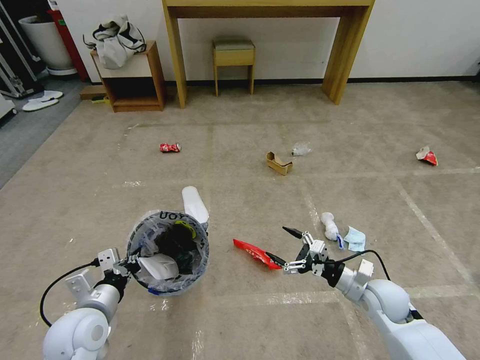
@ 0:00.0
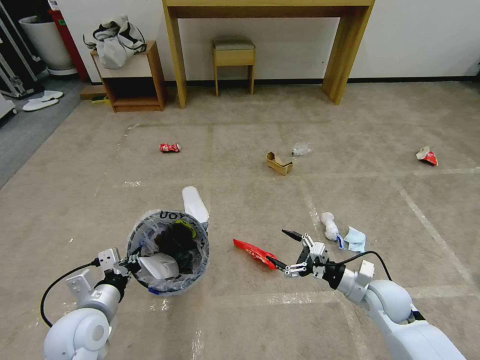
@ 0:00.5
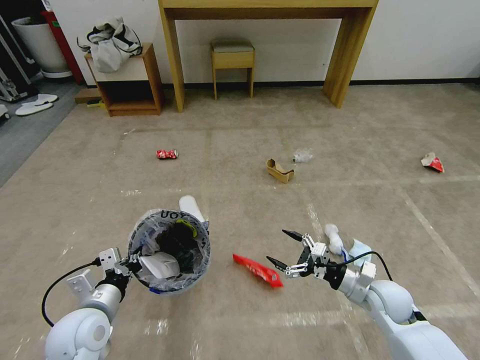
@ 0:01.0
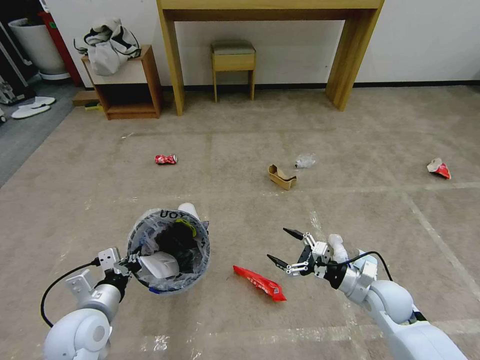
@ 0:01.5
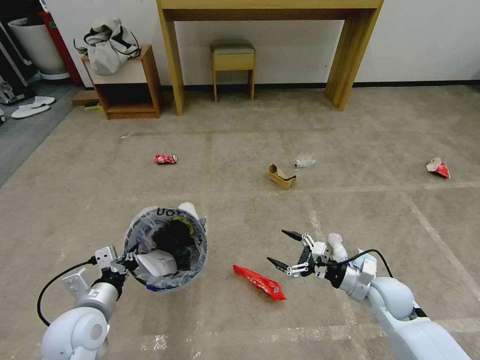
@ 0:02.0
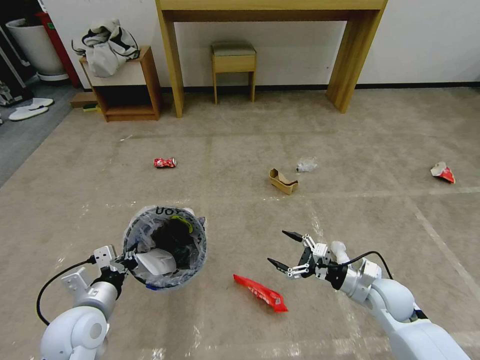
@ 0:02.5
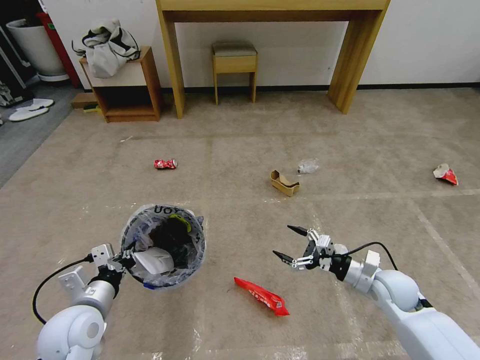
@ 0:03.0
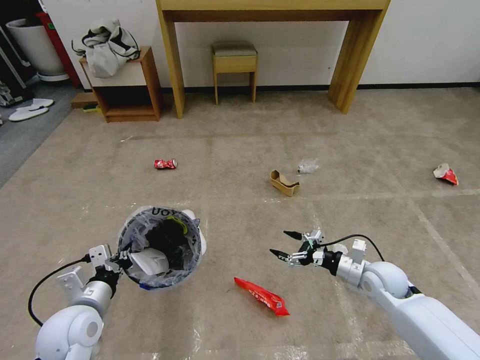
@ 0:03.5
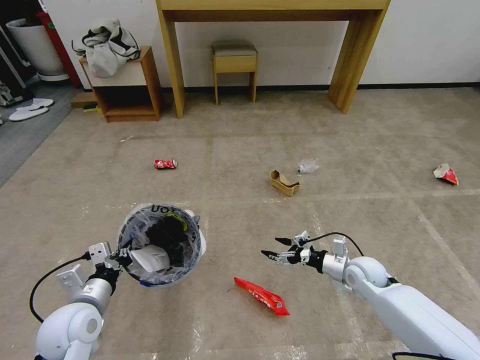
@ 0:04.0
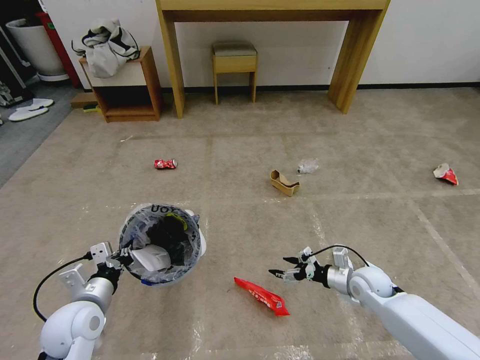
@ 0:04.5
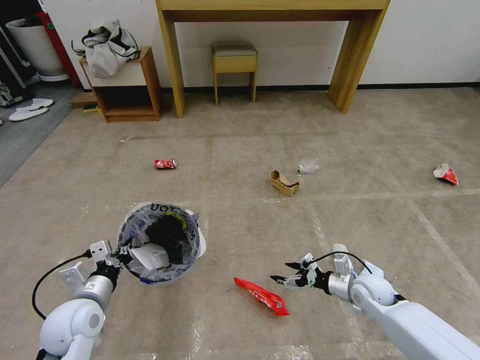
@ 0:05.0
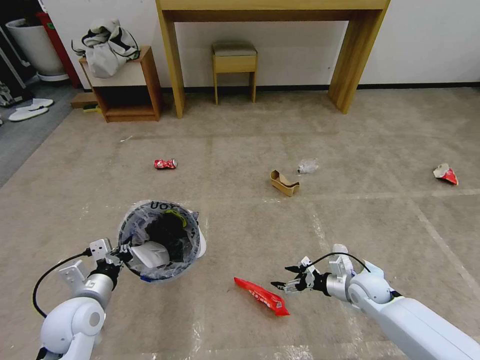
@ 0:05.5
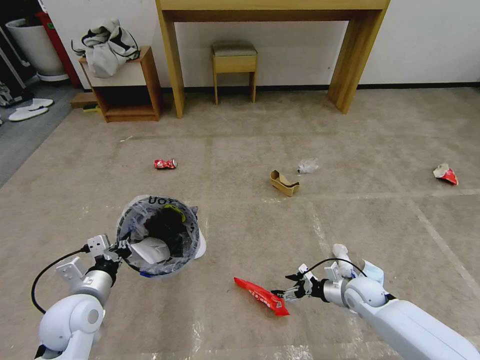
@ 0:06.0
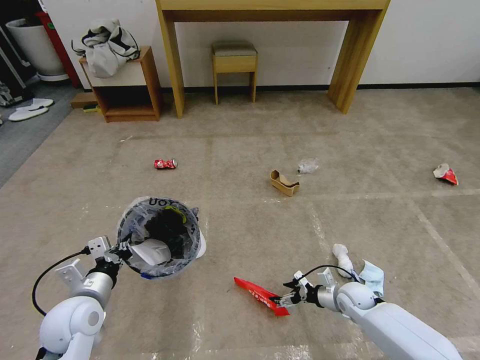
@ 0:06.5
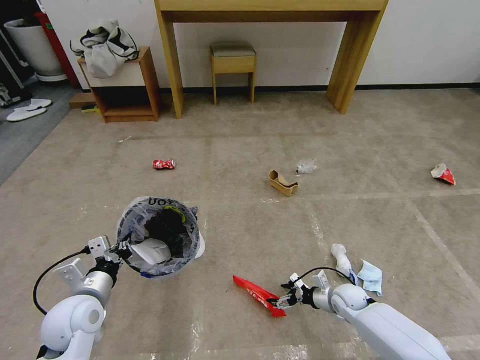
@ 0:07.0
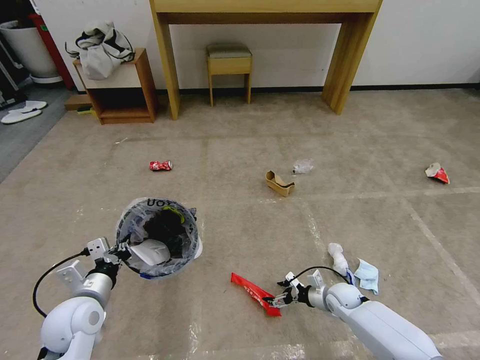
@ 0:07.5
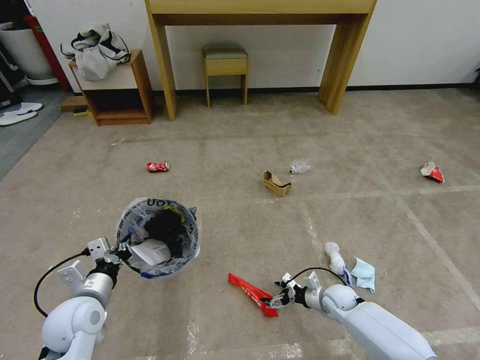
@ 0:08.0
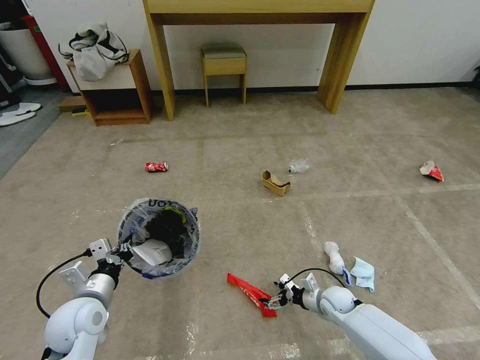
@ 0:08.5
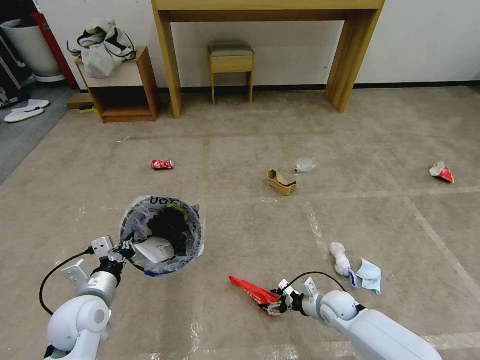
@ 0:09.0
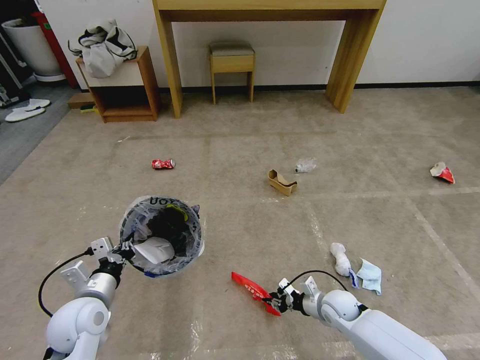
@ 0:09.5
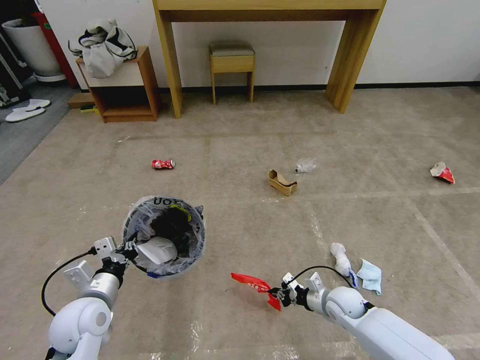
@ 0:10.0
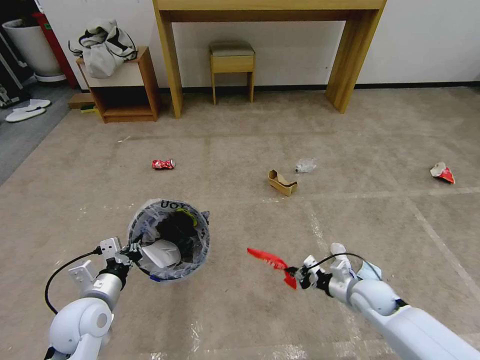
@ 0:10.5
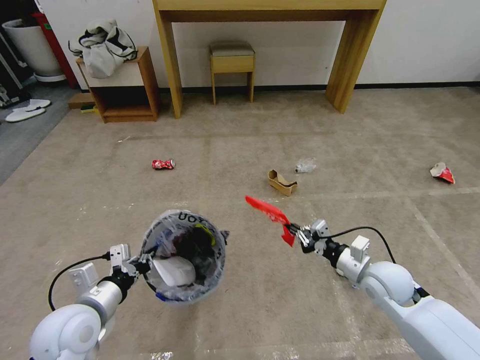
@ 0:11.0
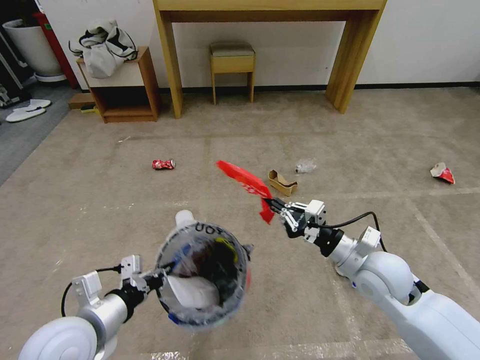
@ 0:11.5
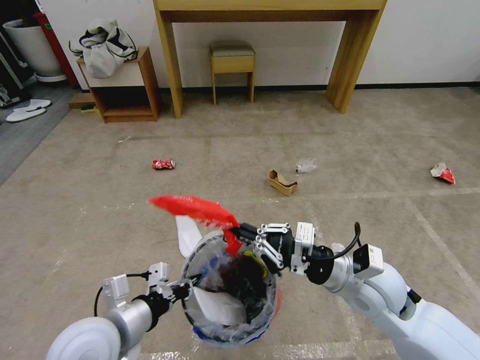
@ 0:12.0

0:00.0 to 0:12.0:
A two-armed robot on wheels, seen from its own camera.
Task of the whole recording: Pick up the trash bin and place the garbage on the floor into it.
0:00.0 to 0:02.0: Neither gripper changes place.
0:02.0 to 0:04.0: The right gripper heads forward, covering roughly 5 cm.
0:04.0 to 0:06.0: The right gripper moves downward, some 5 cm.
0:06.0 to 0:08.0: The right gripper moves downward, some 10 cm.
0:08.0 to 0:10.0: The right gripper is displaced upward by some 5 cm, and closes.
0:10.0 to 0:12.0: The left gripper heads upward, to the right and backward, covering approximately 15 cm, while the right gripper moves upward, some 25 cm.

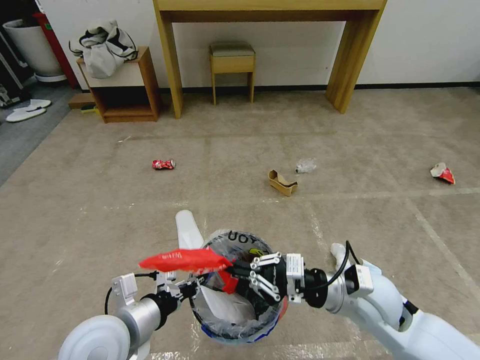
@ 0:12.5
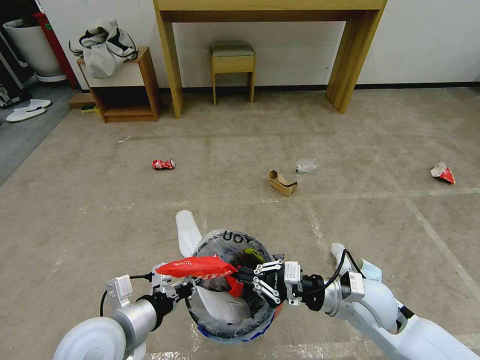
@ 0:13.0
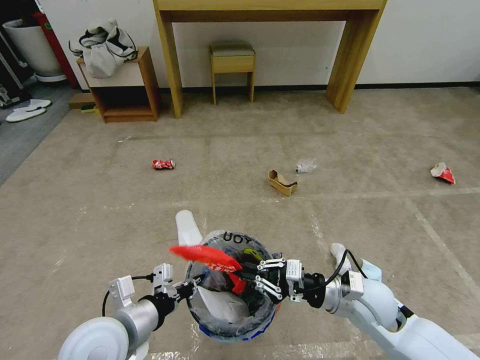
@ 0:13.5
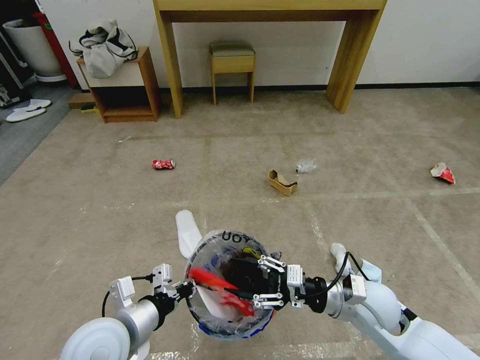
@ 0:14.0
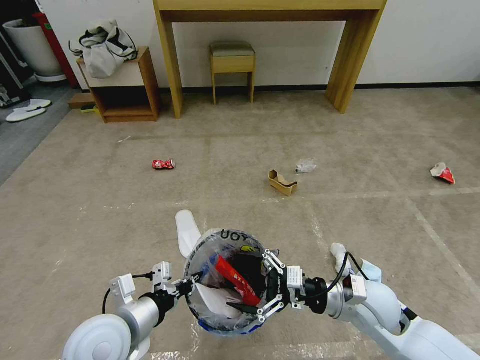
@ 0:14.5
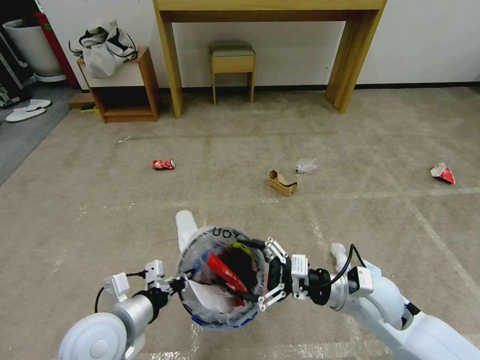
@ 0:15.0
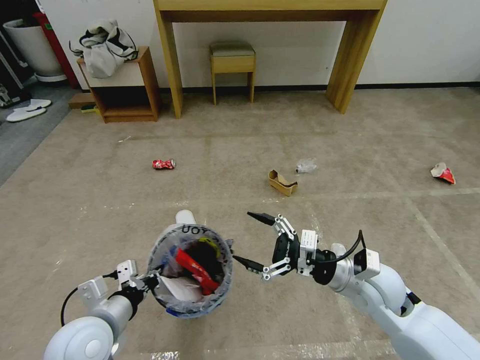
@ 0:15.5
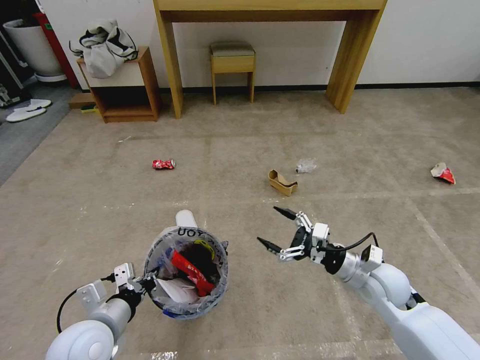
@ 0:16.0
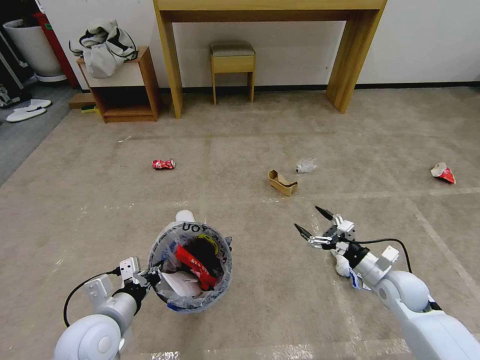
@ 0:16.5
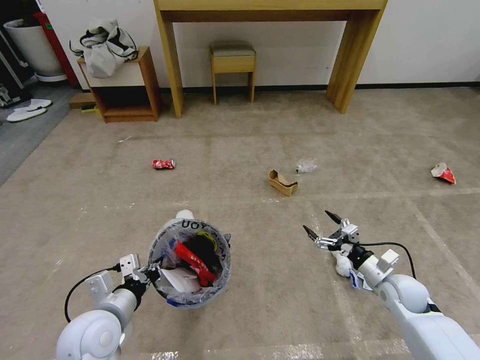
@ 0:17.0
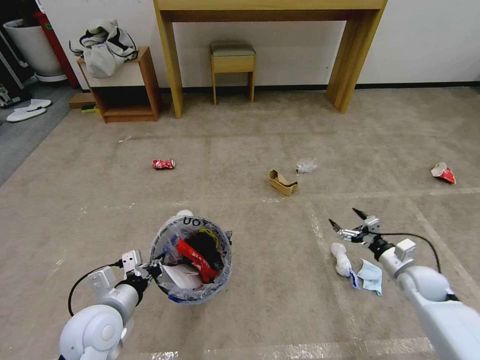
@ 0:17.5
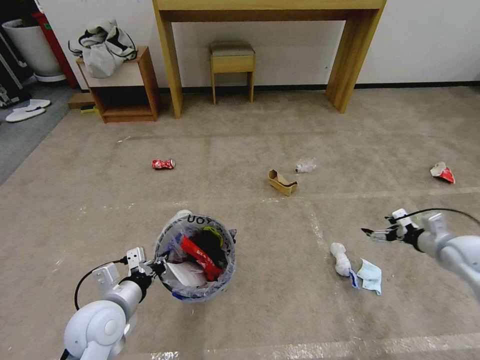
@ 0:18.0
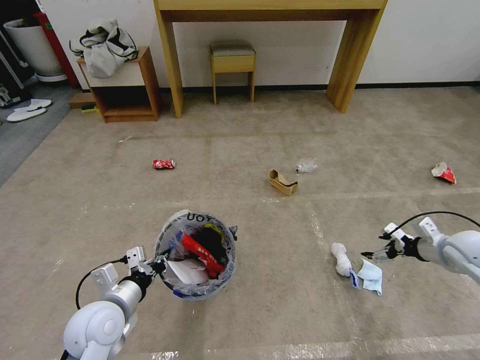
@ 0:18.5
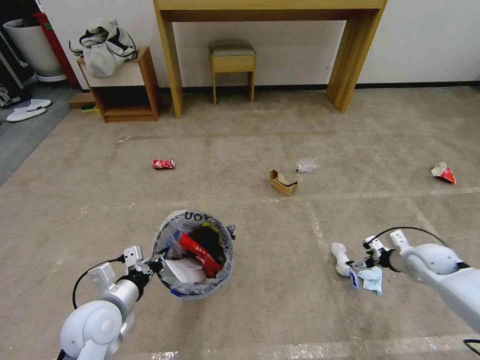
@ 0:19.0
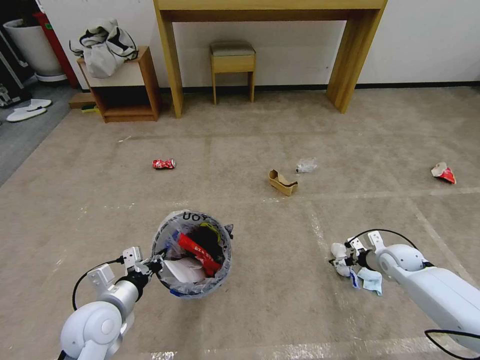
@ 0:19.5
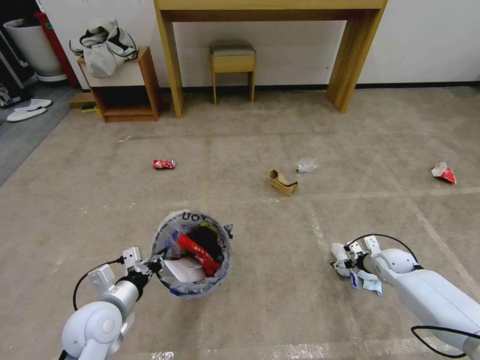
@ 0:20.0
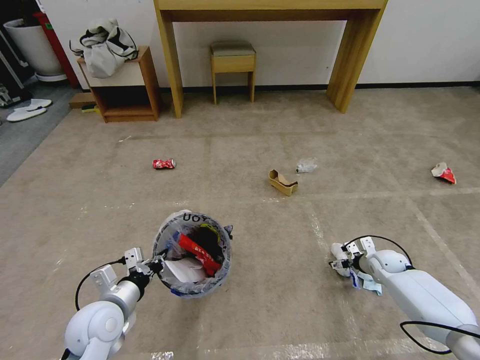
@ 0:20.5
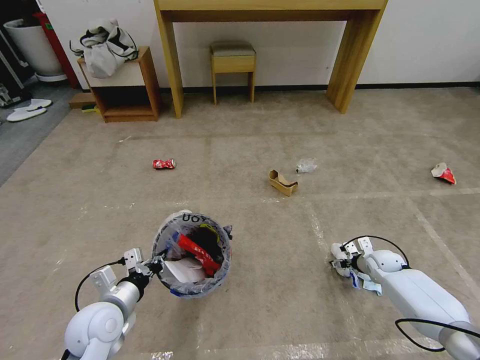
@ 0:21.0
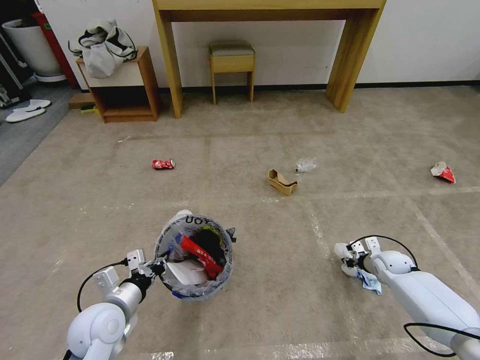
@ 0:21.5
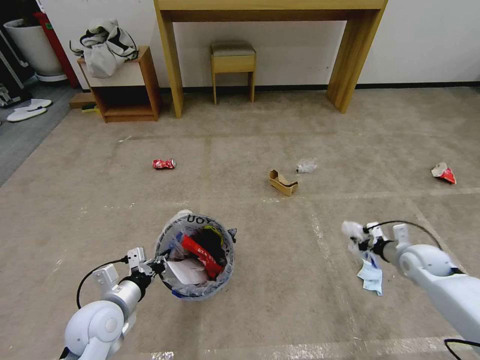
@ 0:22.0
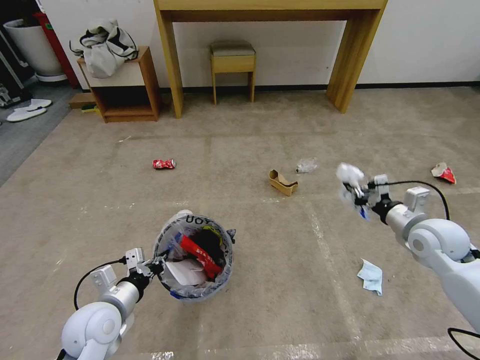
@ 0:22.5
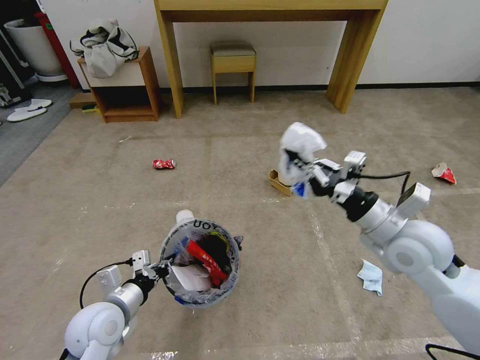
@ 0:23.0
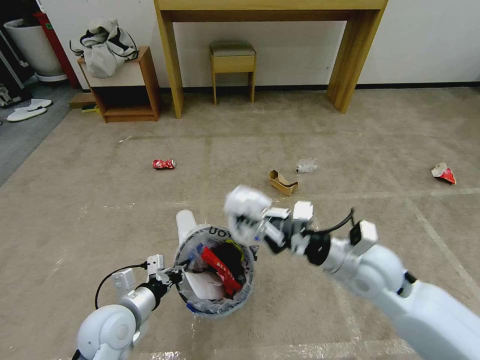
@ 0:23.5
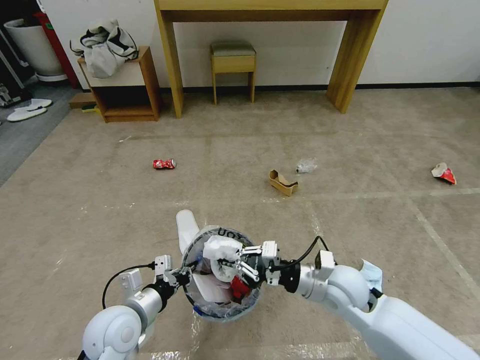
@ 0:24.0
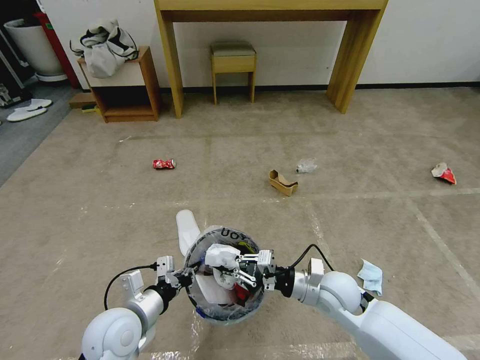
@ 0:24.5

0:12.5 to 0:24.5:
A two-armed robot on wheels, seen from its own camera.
Task of the whole recording: Pick up the trash bin and place the garbage on the floor into it.
0:12.5 to 0:14.5: The right gripper opens its fingers.
0:14.5 to 0:16.5: The right gripper shifts approximately 15 cm to the right, downward and forward, while the left gripper shifts by roughly 5 cm.
0:16.5 to 0:18.5: The right gripper heads to the right and upward, covering some 15 cm.
0:18.5 to 0:20.5: The right gripper goes approximately 20 cm downward and to the left.
0:20.5 to 0:22.5: The right gripper heads upward, covering roughly 20 cm, and closes up.
0:22.5 to 0:24.5: The right gripper heads to the left and downward, covering some 25 cm; the left gripper changes place by about 5 cm.

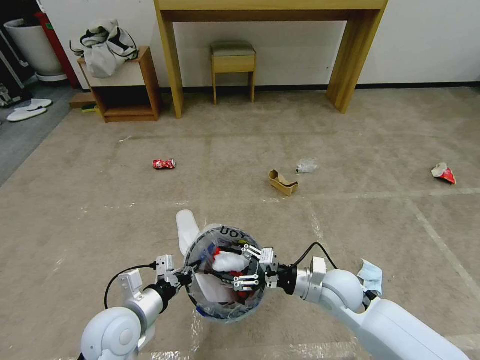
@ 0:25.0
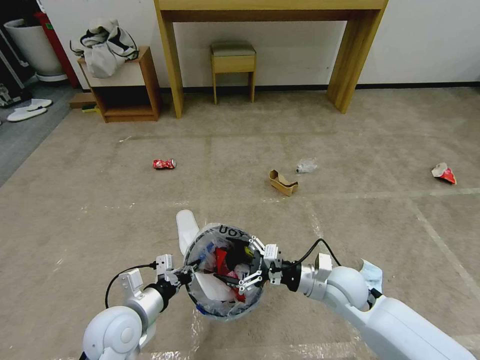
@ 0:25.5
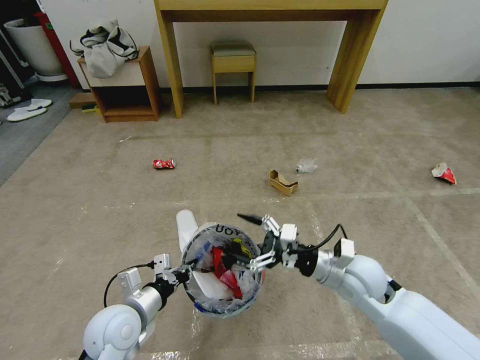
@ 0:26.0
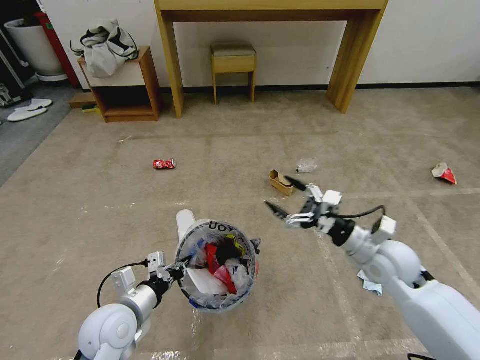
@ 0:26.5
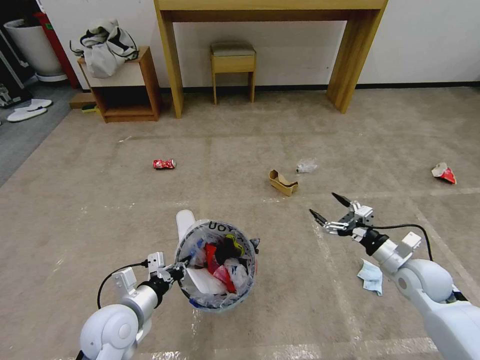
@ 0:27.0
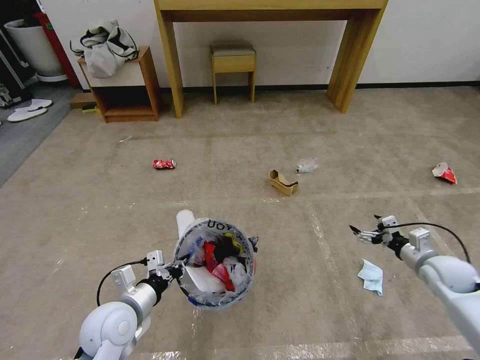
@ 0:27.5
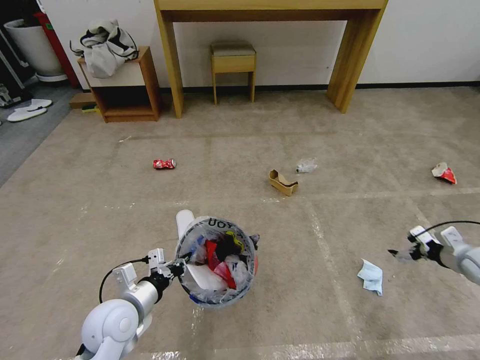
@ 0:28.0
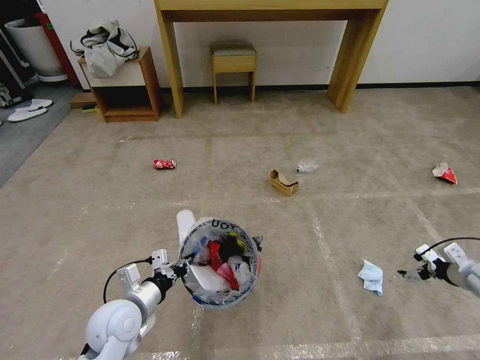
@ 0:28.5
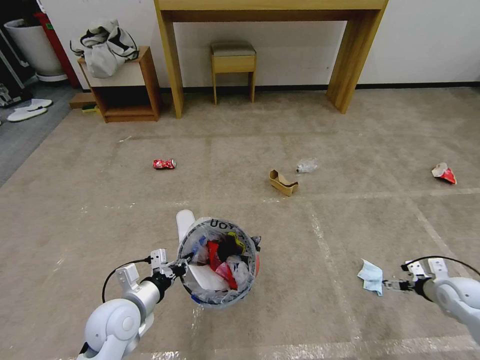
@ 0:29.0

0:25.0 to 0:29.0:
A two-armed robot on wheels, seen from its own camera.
Task of the whole recording: Pick up the trash bin and place the garbage on the floor into it.
0:25.0 to 0:27.0: The right gripper heads to the right, covering about 20 cm.
0:27.0 to 0:29.0: The right gripper moves to the right and downward, roughly 15 cm.
